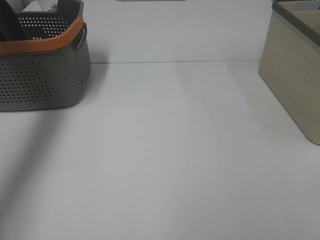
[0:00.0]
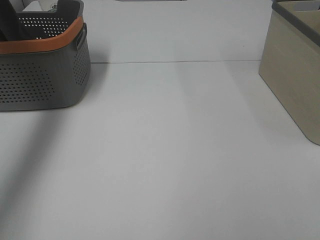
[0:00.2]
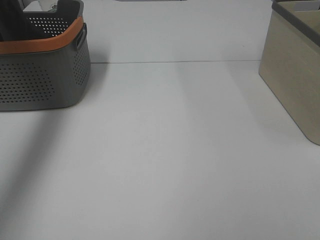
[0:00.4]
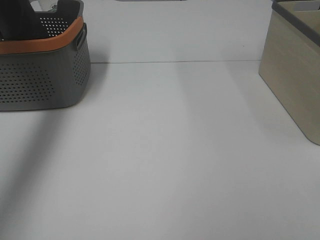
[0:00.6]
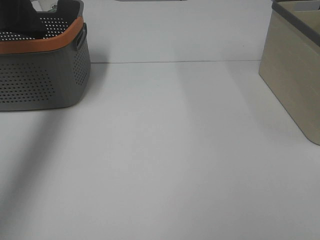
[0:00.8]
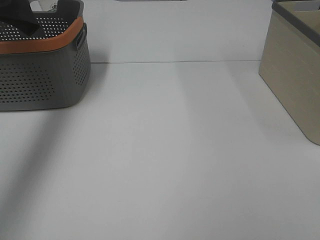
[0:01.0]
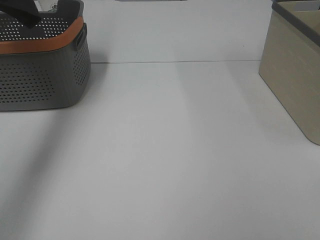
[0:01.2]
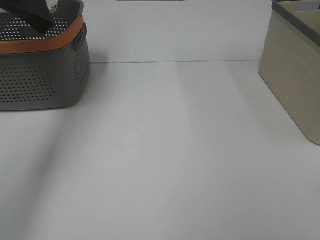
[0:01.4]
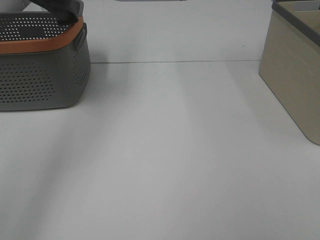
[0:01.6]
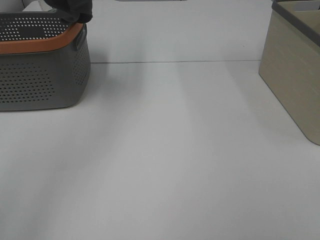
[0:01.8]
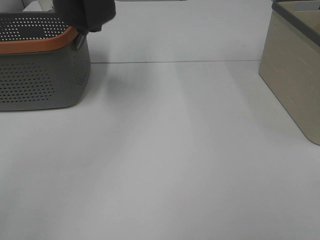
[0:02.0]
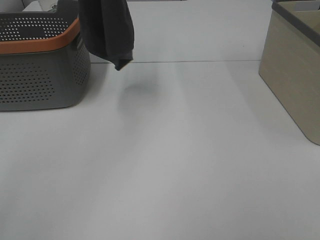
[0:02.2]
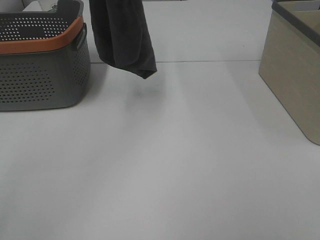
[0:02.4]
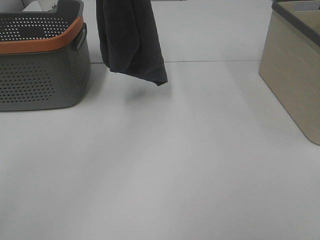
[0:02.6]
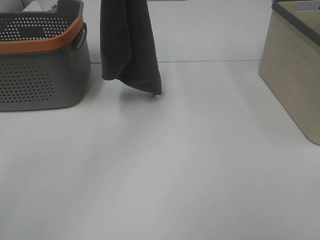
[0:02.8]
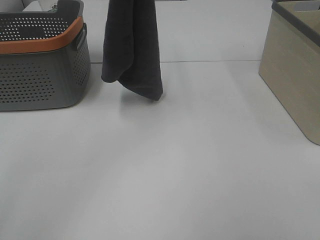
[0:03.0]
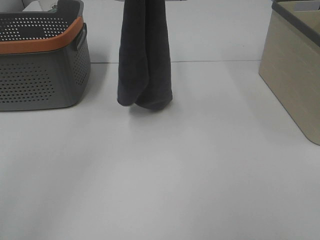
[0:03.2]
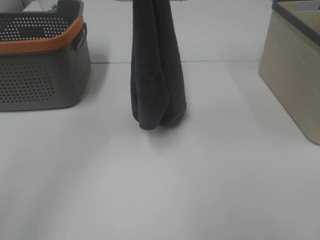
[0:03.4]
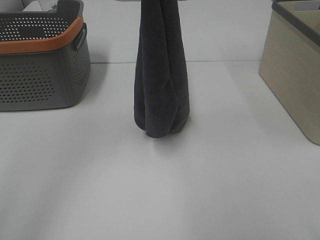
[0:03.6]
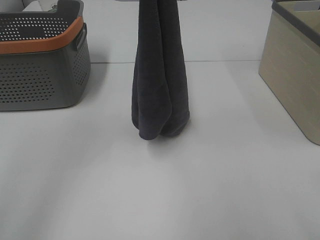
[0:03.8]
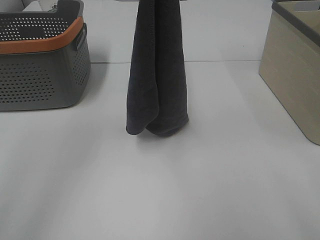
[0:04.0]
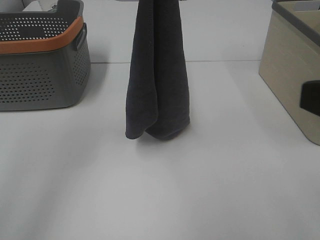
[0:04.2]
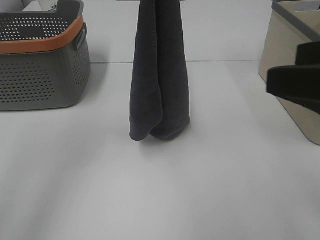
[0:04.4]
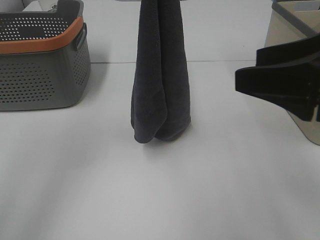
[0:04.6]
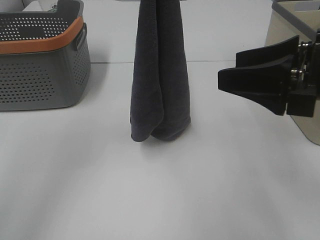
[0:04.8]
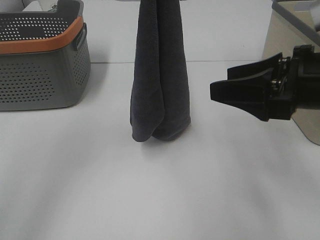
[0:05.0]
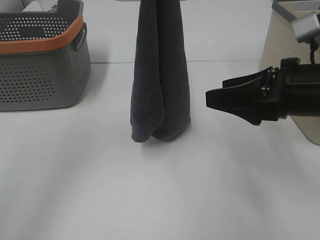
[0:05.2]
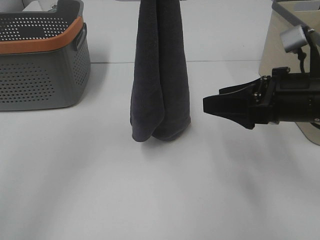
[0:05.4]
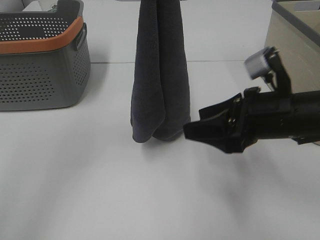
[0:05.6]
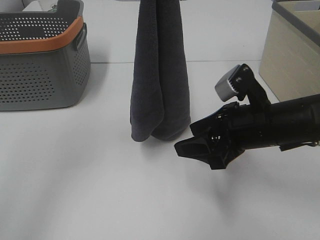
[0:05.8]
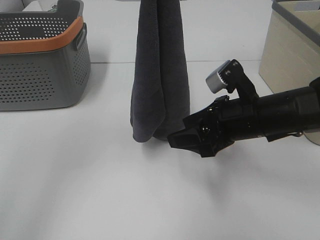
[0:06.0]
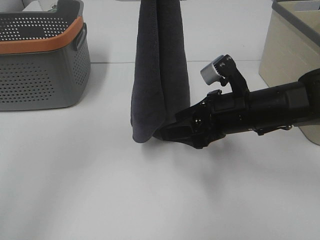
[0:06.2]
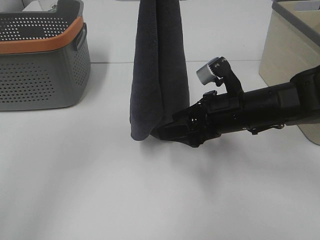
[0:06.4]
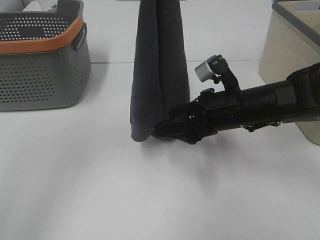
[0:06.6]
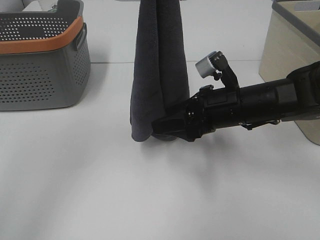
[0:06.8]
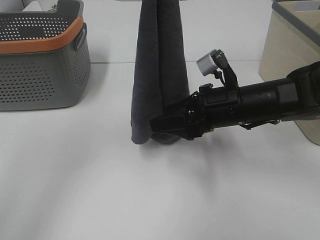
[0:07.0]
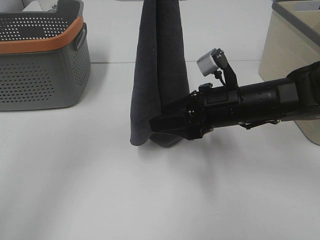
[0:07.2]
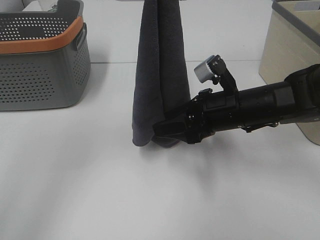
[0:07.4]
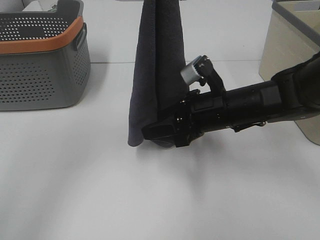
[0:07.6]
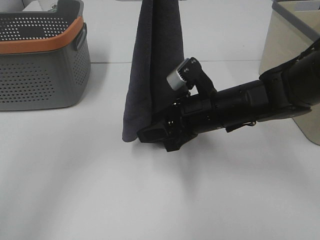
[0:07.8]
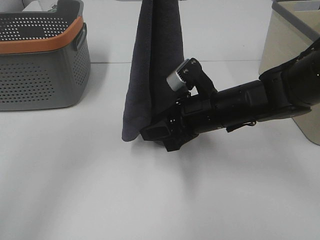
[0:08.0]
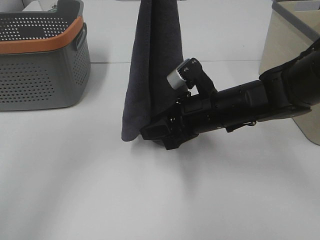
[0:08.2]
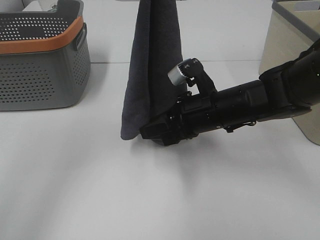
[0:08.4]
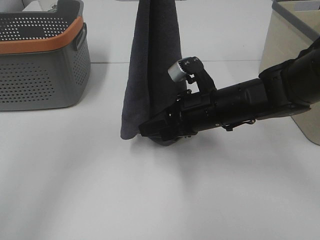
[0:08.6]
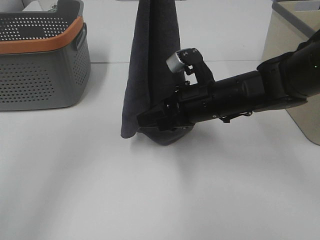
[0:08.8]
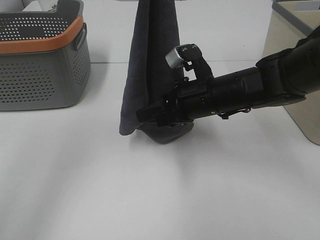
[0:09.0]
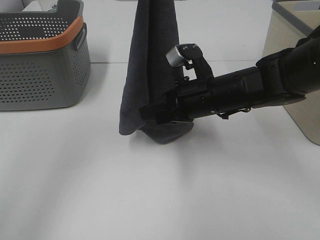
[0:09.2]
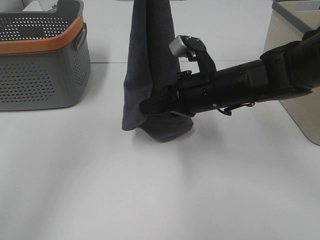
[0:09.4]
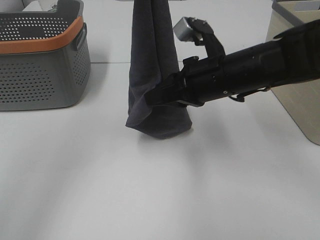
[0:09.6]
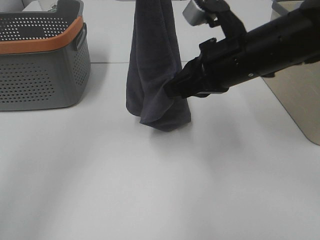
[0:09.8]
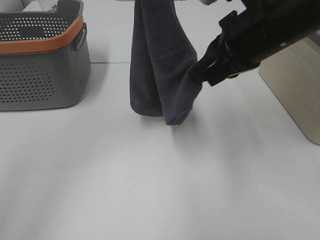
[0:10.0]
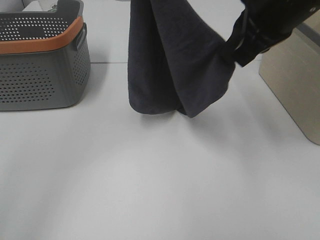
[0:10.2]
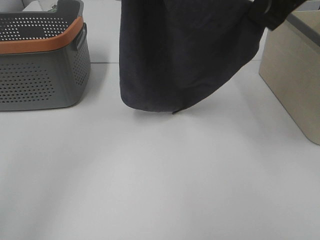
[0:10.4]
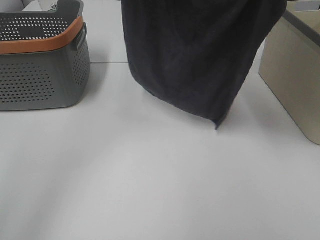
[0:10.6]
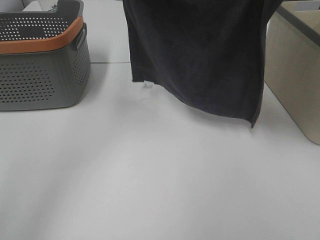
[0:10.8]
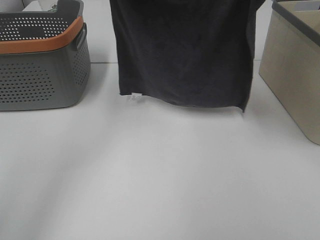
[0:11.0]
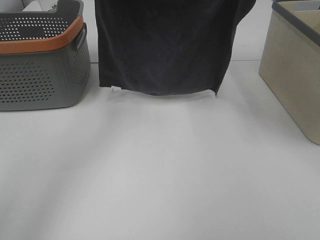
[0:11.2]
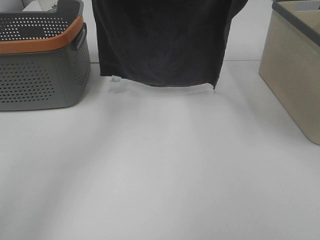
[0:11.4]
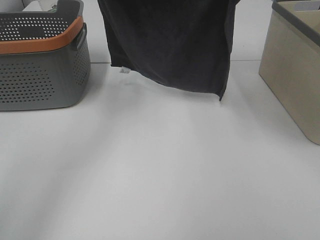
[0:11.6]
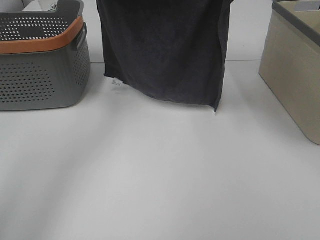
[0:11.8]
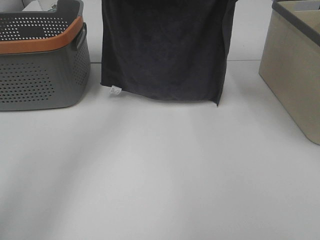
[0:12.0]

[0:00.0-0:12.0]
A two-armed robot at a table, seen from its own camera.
Task of the whole recording: Remove the towel and place it.
Step, 0:02.0 to 0:07.4: Right hand: grab a corner of the grey towel and straighten it.
Step, 0:07.6 to 0:10.0: Left hand: spread the grey towel flat on the table.
Step, 0:07.6 to 0:10.2: Right hand: spread the grey towel flat on the table.
0:00.0 to 0:01.6: The left gripper travels upward, to the right and backward by some 20 cm.
0:01.6 to 0:03.0: The left gripper goes approximately 15 cm downward and to the right.
0:03.0 to 0:04.4: The right gripper is displaced forward and to the left by some 15 cm.
0:04.4 to 0:06.0: The right gripper shifts about 20 cm downward, forward and to the left.
0:06.0 to 0:07.6: The grippers stay close to where they were, moving slightly.
0:07.6 to 0:09.0: The grippers move only a little.
0:09.0 to 0:10.4: The right gripper is displaced upward by about 25 cm, and closes up.
0:10.4 to 0:12.0: The right gripper heads forward, covering roughly 10 cm, while the left gripper heads downward and forward, covering roughly 10 cm.

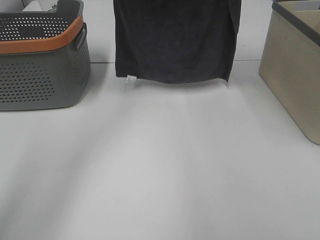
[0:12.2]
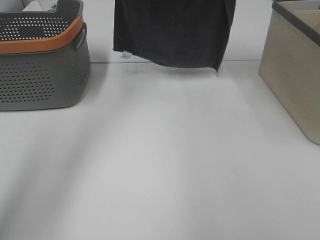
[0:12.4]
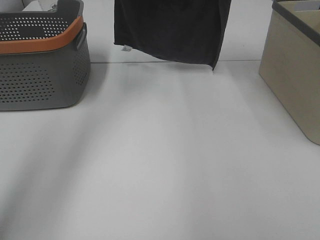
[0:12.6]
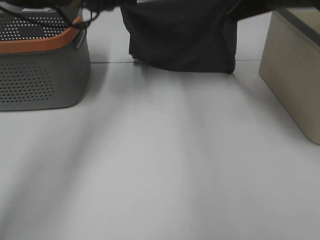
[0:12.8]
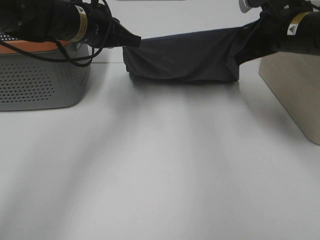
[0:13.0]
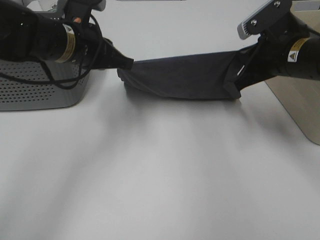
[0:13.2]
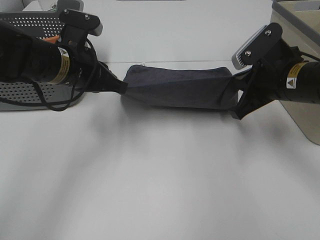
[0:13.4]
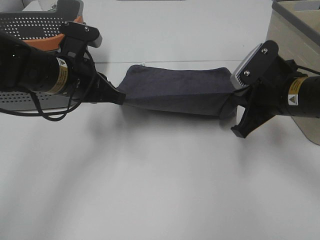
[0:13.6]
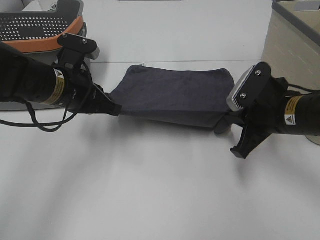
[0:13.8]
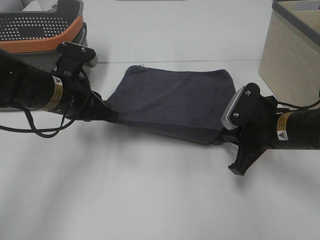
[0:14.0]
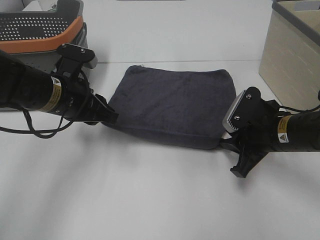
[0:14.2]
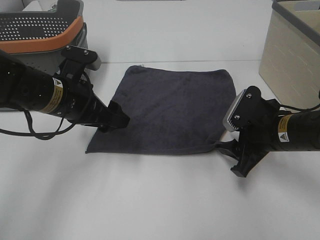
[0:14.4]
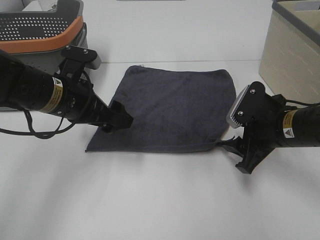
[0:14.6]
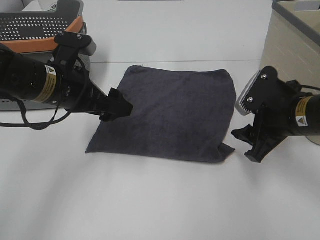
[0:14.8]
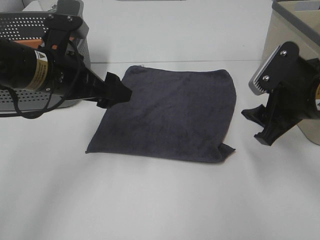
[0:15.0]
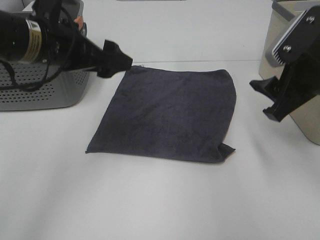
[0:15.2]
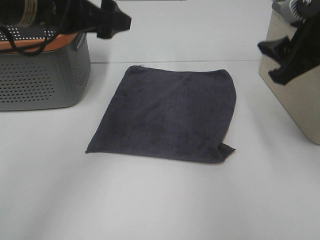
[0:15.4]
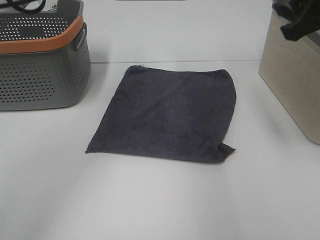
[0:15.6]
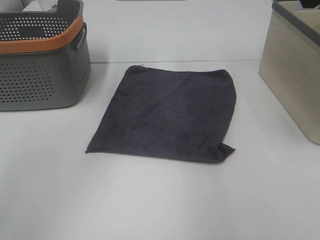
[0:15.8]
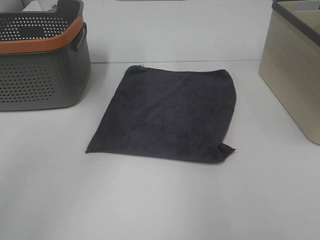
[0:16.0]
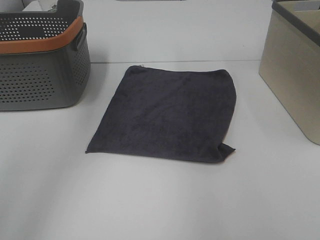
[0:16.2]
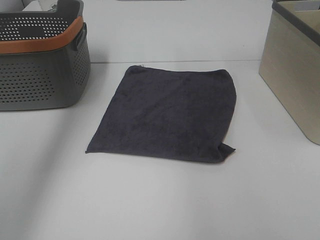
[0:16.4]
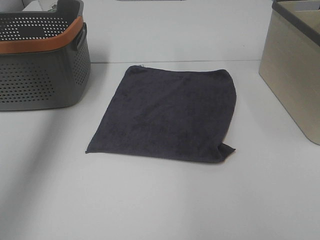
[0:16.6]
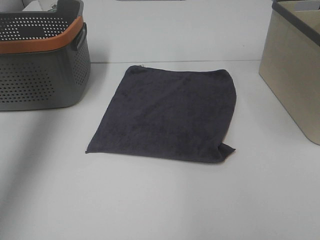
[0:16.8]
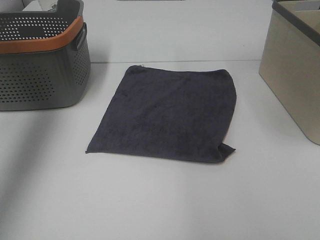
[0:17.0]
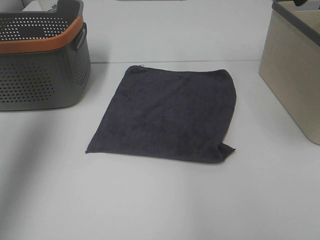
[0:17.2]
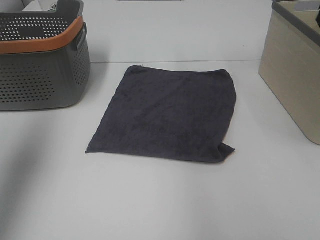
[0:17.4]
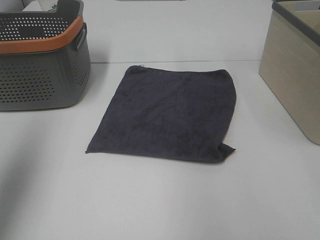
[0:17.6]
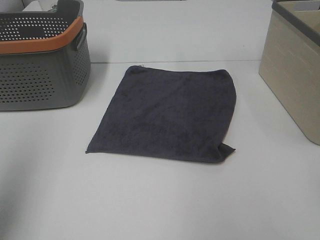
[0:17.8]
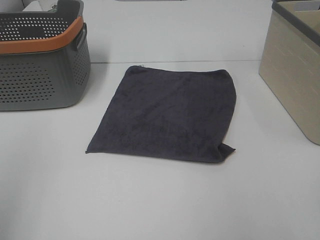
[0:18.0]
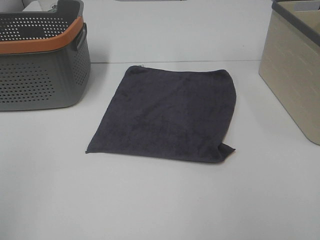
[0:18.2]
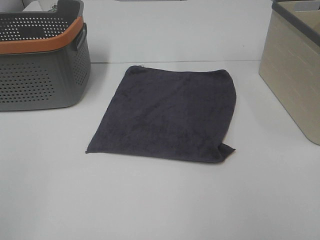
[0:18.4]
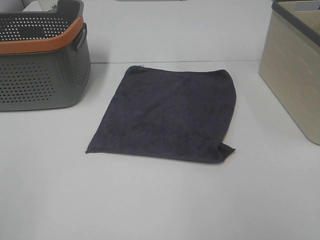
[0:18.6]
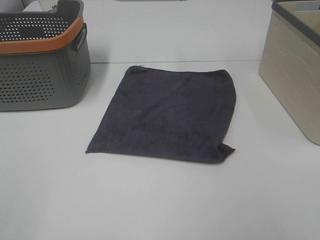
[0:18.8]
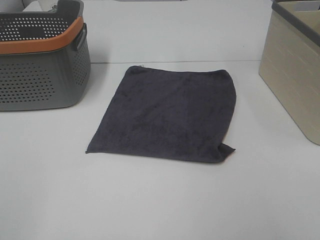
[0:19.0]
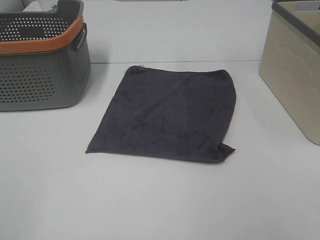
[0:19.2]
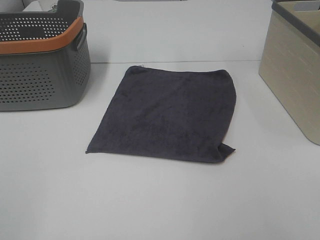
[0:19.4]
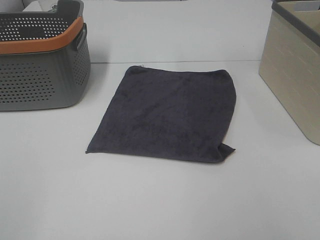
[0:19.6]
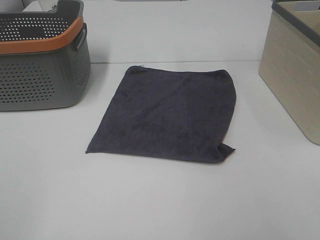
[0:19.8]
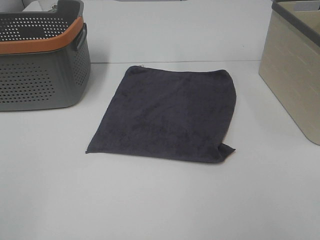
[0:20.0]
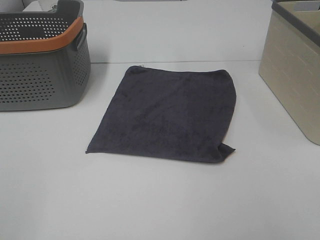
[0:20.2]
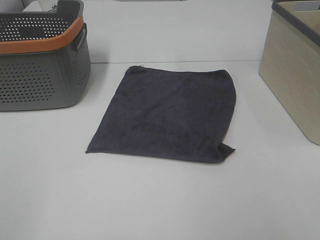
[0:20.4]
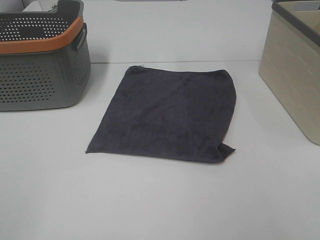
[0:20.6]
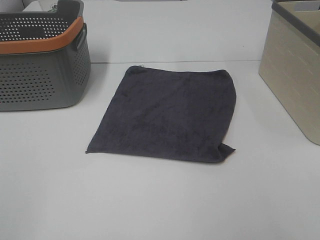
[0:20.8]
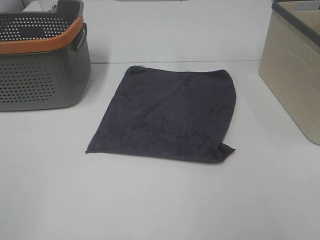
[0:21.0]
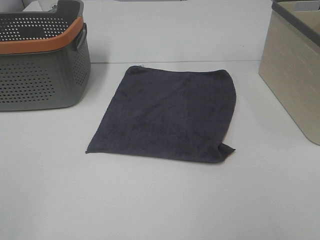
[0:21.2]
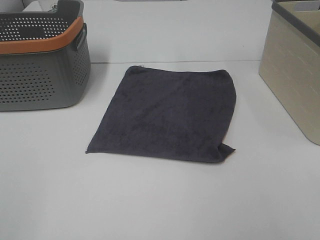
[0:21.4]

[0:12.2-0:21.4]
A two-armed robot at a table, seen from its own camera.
Task of the whole recording: Remove the towel and place it.
0:12.2 to 0:13.8: The grippers both shift downward and backward by some 25 cm.
0:13.8 to 0:15.2: The grippers both shift upward by approximately 10 cm. The right gripper opens its fingers; the left gripper opens up.
0:15.2 to 0:16.8: The left gripper shifts roughly 25 cm upward and to the left, while the right gripper moves upward and forward, about 20 cm.
0:16.8 to 0:18.4: The left gripper is displaced backward by roughly 35 cm.

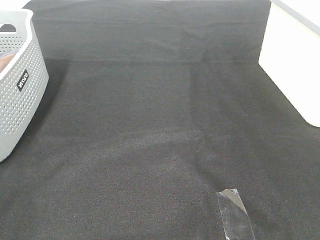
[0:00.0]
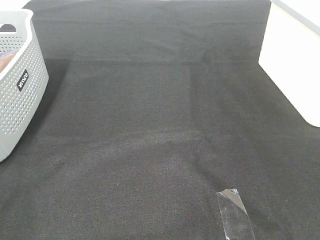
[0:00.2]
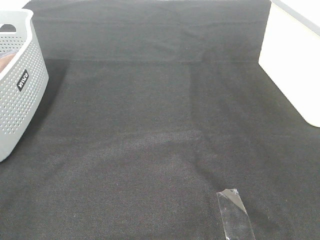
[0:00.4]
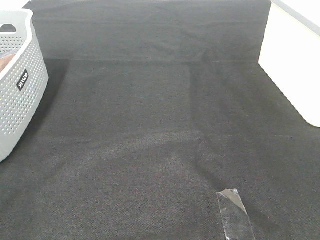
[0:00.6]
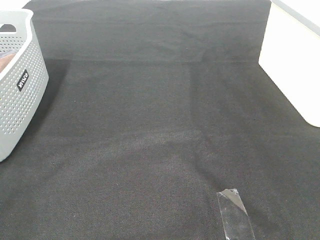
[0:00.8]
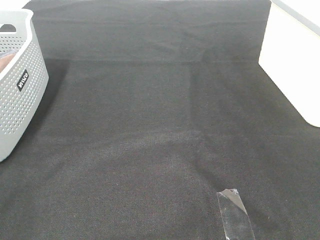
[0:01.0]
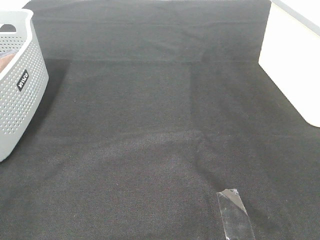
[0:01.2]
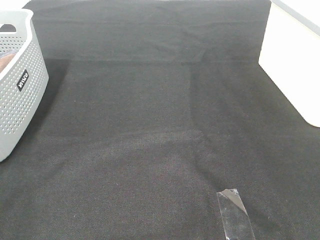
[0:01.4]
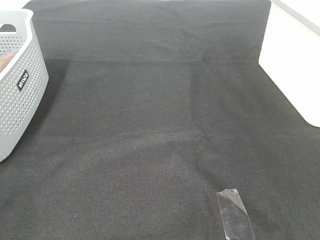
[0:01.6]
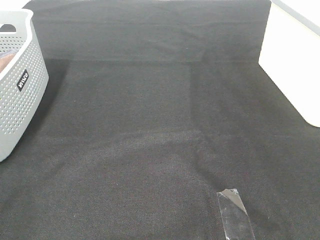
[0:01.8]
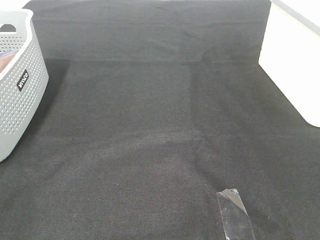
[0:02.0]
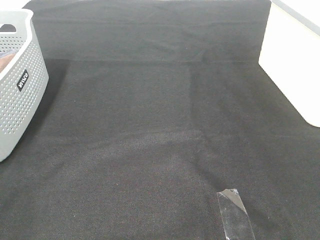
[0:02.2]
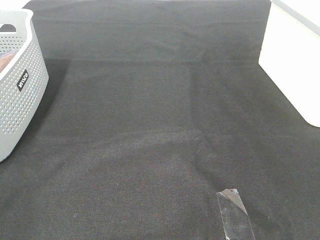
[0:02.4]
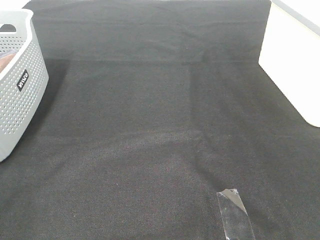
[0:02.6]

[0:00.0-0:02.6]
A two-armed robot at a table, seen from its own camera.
Task of the whole recording: Remove the towel and place it.
0:00.0 to 0:02.6: Both grippers stay about where they are.
